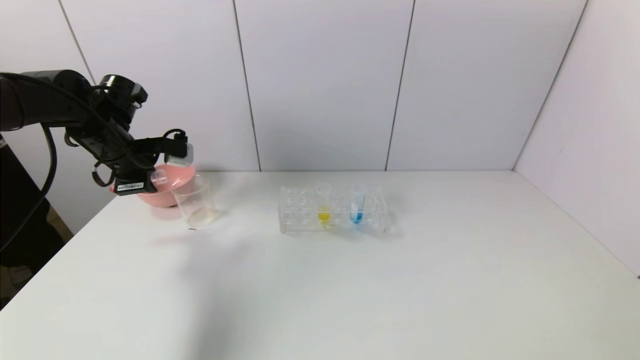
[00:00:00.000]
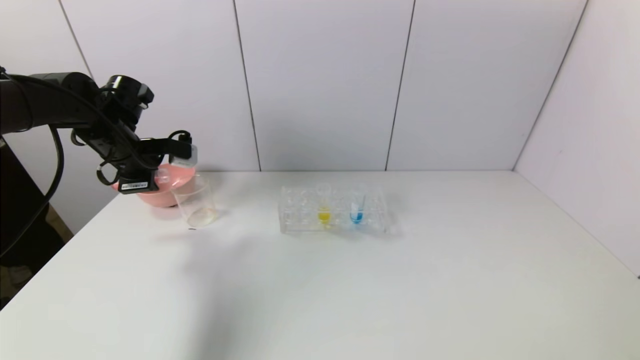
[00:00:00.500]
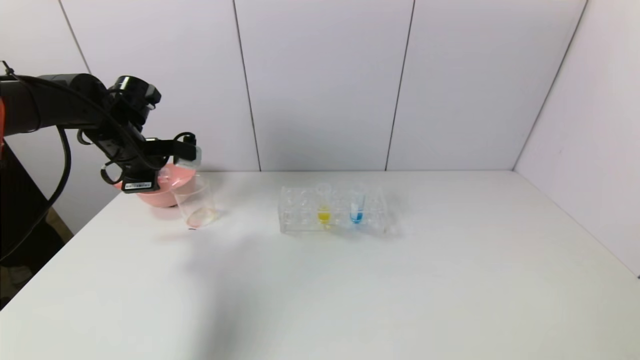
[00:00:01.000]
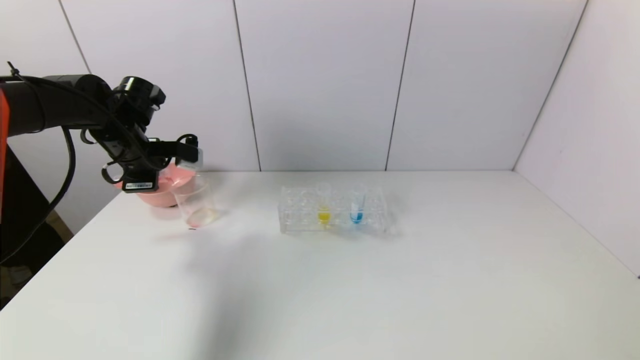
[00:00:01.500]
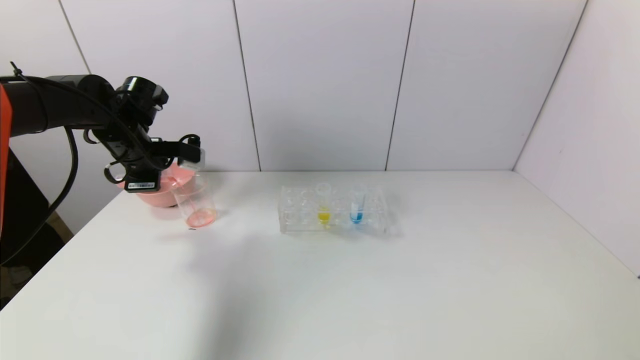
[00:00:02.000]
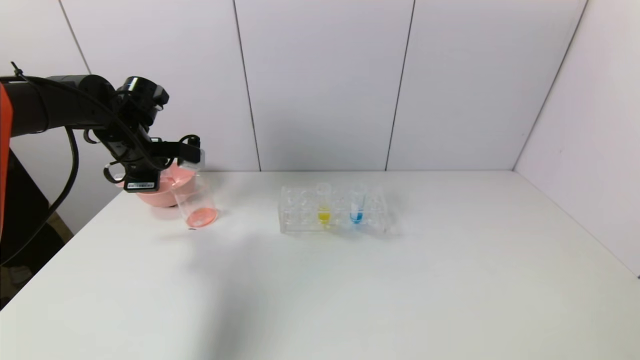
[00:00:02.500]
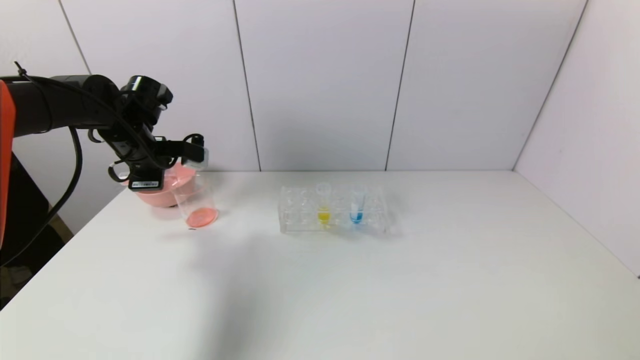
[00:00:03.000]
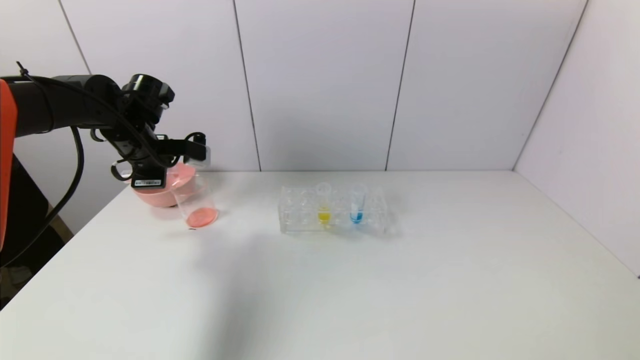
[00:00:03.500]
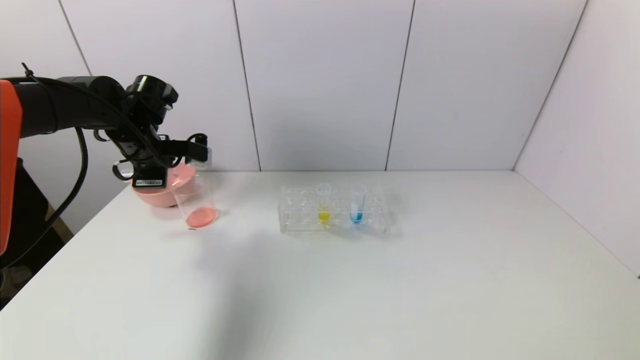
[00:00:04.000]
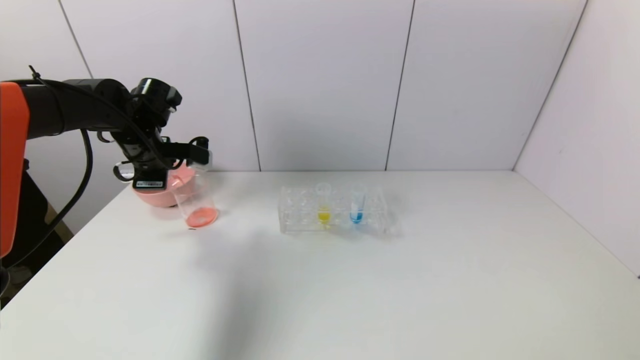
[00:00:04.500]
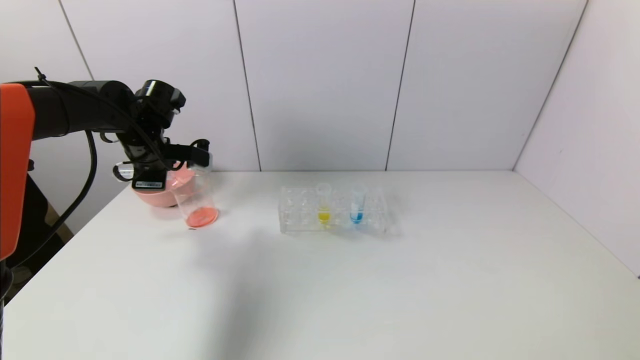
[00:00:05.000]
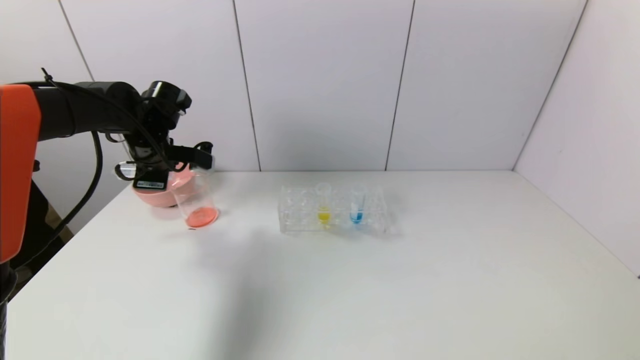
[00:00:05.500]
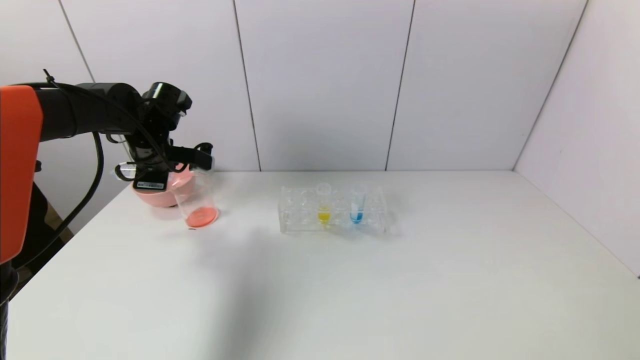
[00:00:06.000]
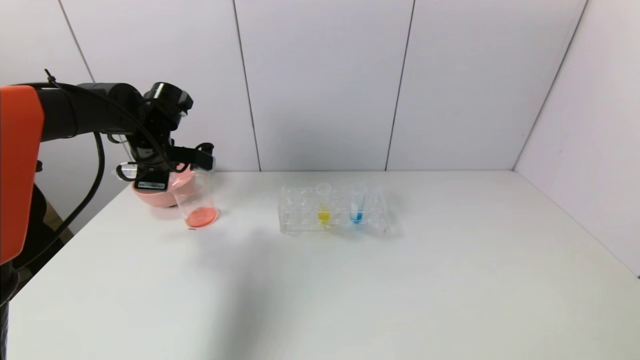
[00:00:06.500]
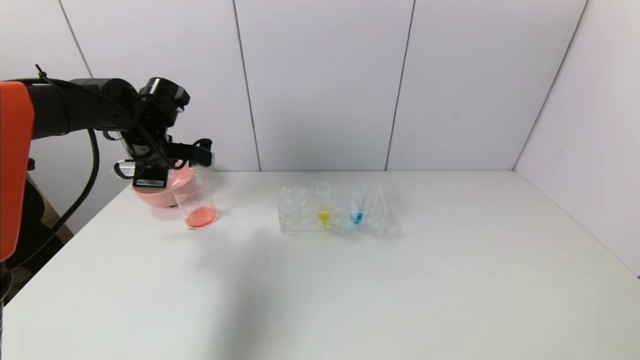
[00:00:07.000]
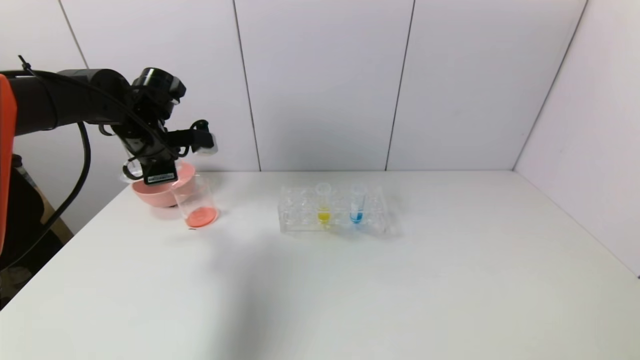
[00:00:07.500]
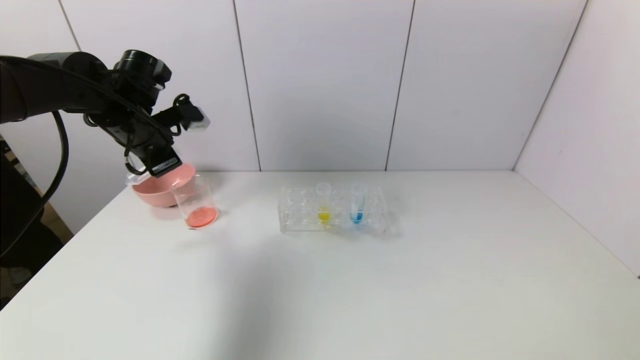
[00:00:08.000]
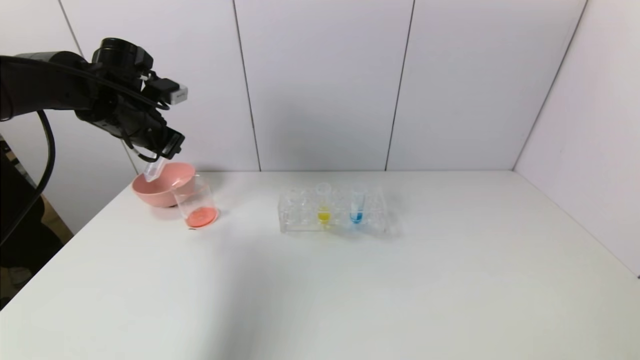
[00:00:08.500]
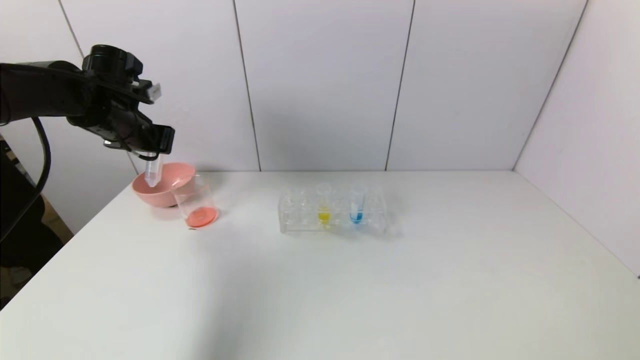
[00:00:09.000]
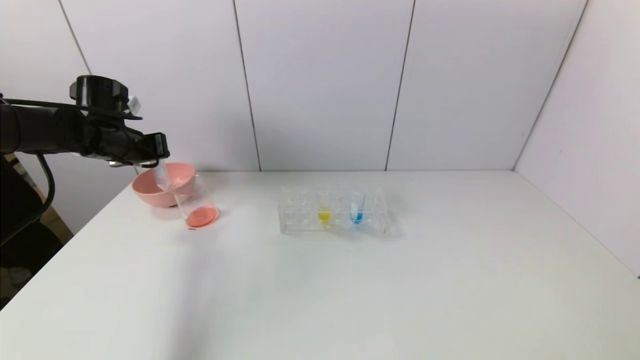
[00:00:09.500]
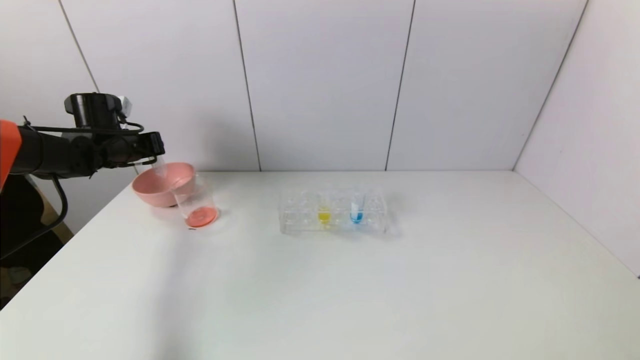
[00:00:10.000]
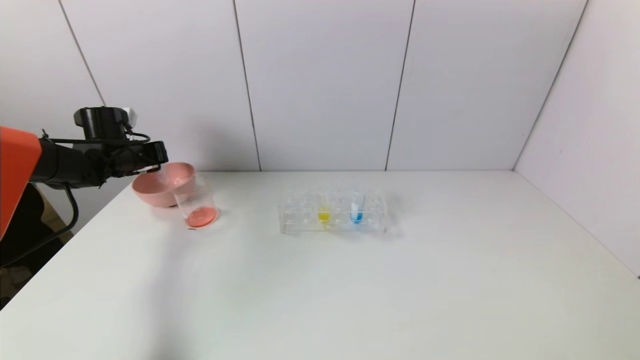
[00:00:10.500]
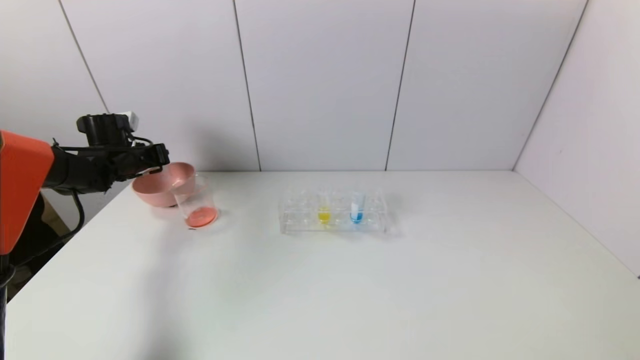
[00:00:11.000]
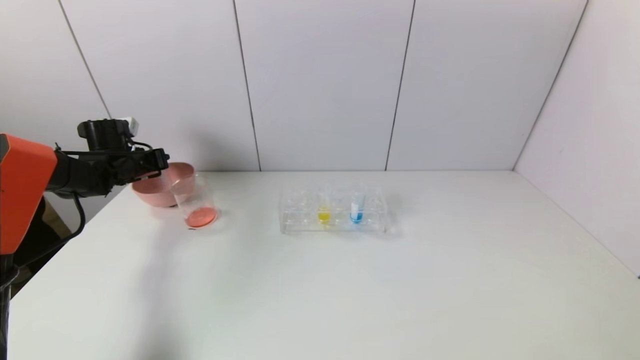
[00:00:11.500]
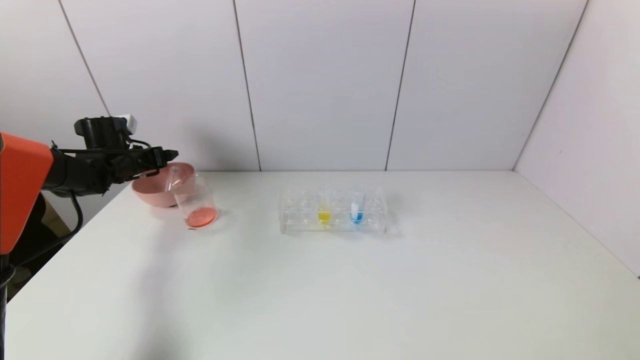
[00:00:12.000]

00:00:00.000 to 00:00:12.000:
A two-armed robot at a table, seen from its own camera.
Task of the whole recording: pick up the test tube with yellow pigment and the test tube with red pigment by grippers and pour them into the beaker.
Step, 00:00:00.000 to 00:00:05.500: Pour the red reagent into the graduated cylinder with the left gripper.
00:00:00.000 to 00:00:04.000: The grippers make only small movements.
00:00:04.000 to 00:00:06.000: There are only small adjustments of the grippers.
00:00:06.000 to 00:00:08.000: The left gripper ends up roughly 5 cm from where it was.
00:00:08.000 to 00:00:10.000: The left gripper travels to the left, downward and forward by approximately 15 cm.
00:00:10.000 to 00:00:12.000: The left gripper shifts by approximately 5 cm, and opens up.

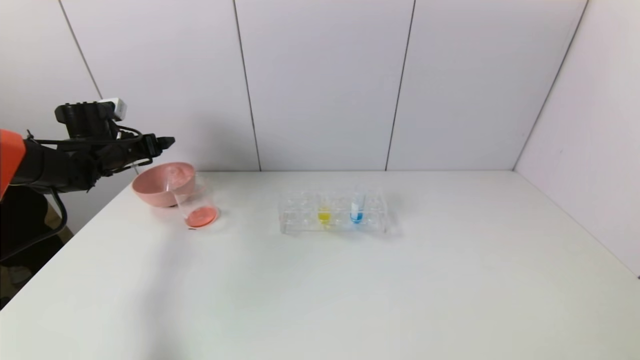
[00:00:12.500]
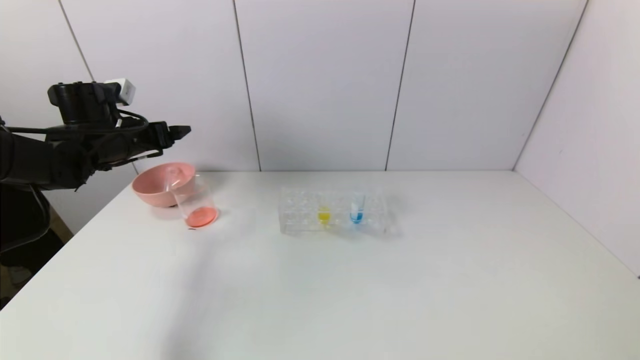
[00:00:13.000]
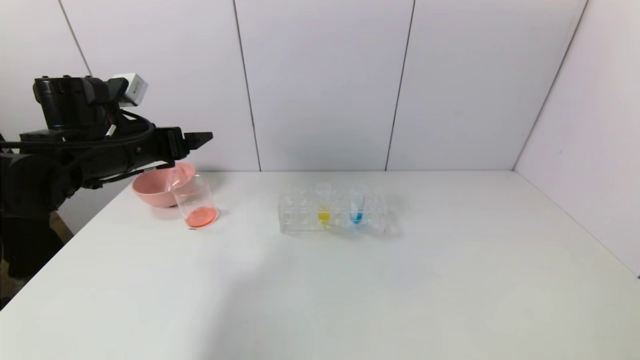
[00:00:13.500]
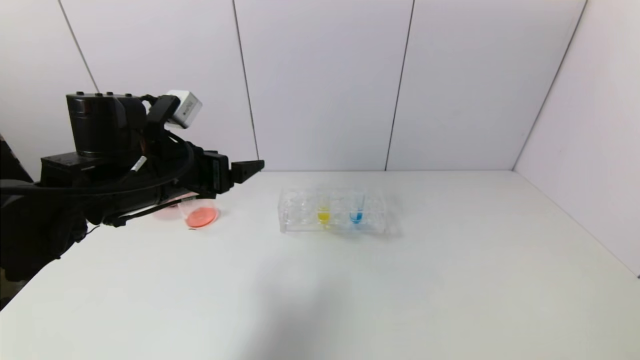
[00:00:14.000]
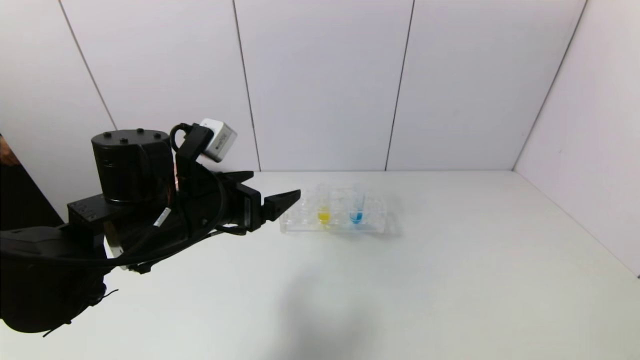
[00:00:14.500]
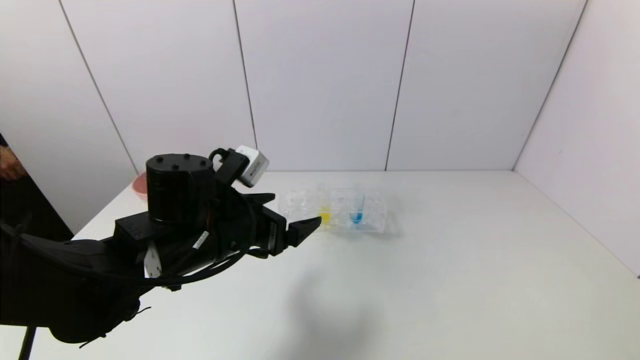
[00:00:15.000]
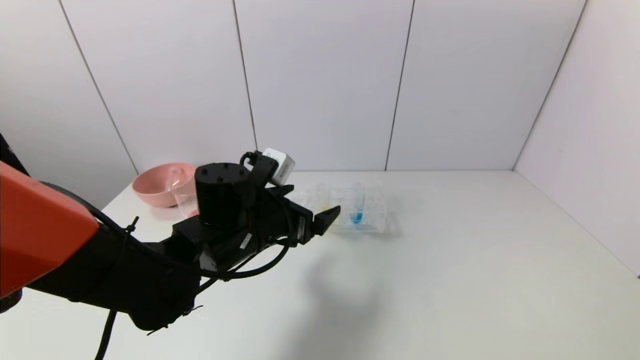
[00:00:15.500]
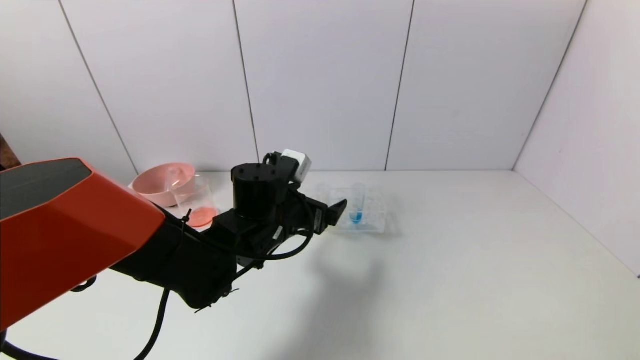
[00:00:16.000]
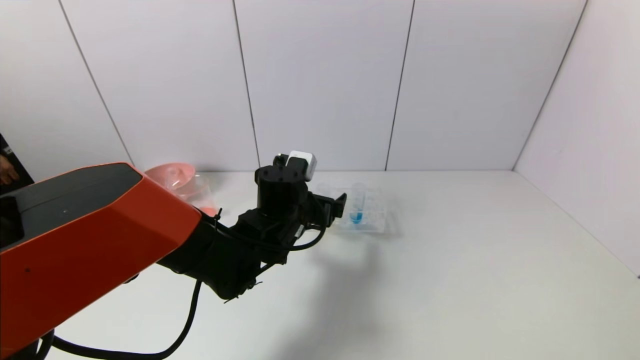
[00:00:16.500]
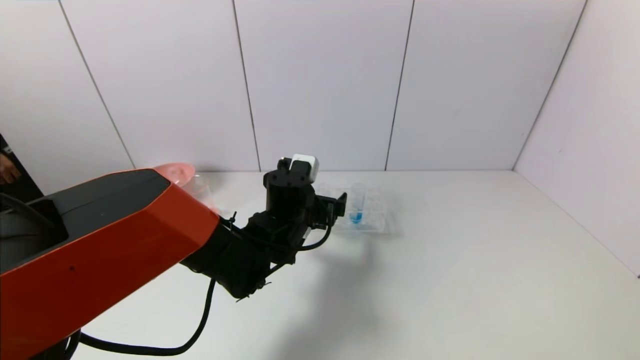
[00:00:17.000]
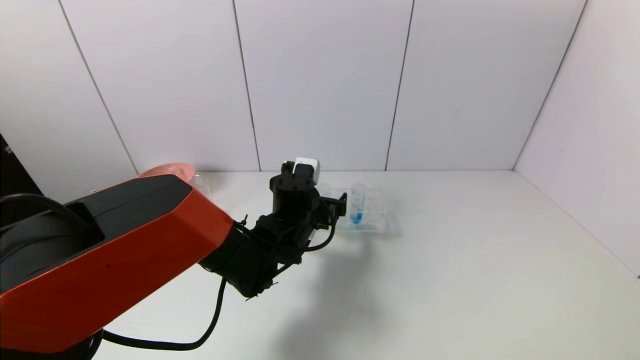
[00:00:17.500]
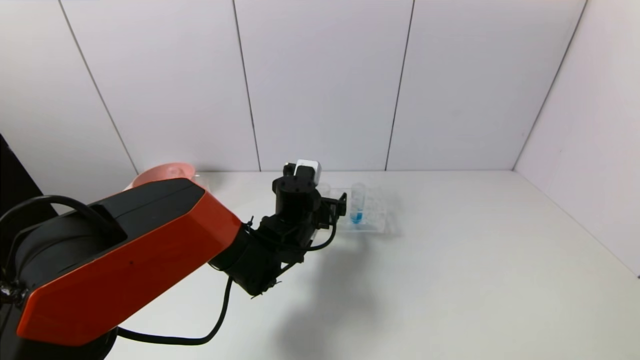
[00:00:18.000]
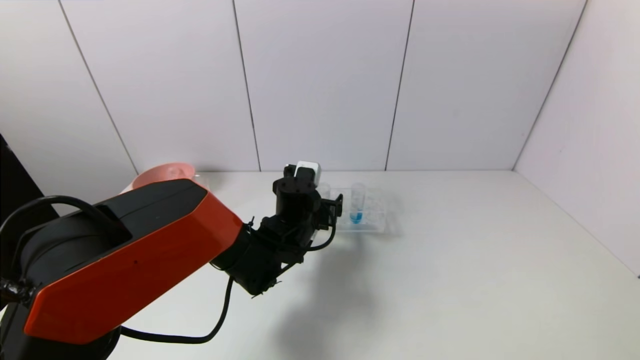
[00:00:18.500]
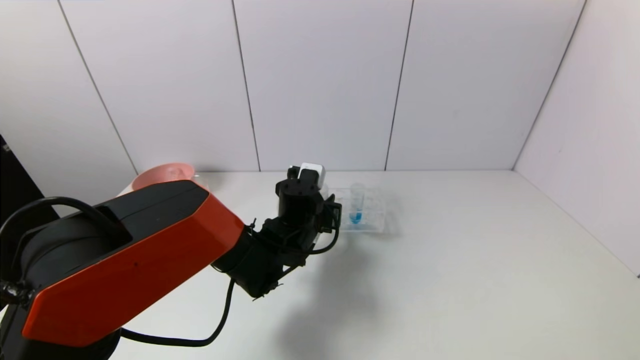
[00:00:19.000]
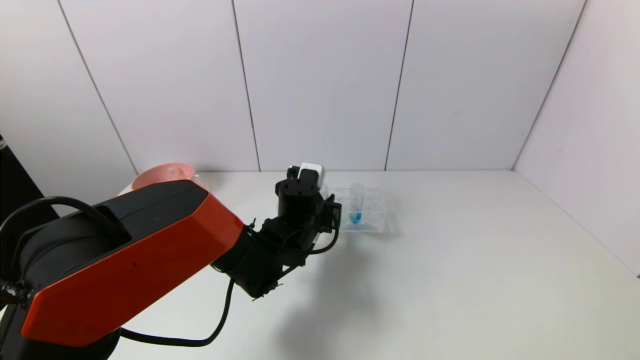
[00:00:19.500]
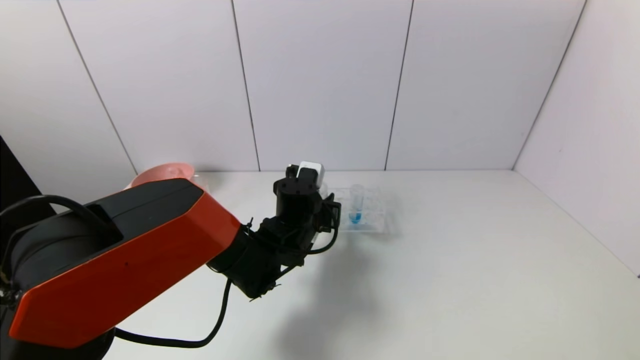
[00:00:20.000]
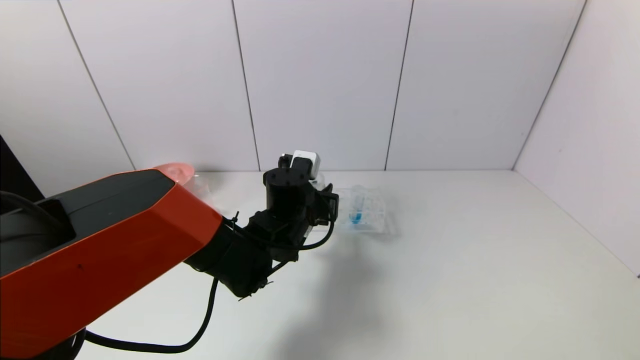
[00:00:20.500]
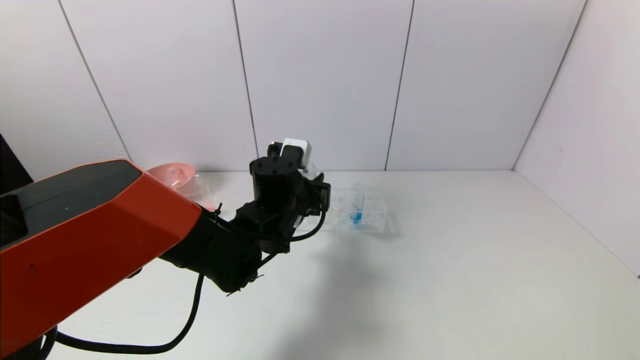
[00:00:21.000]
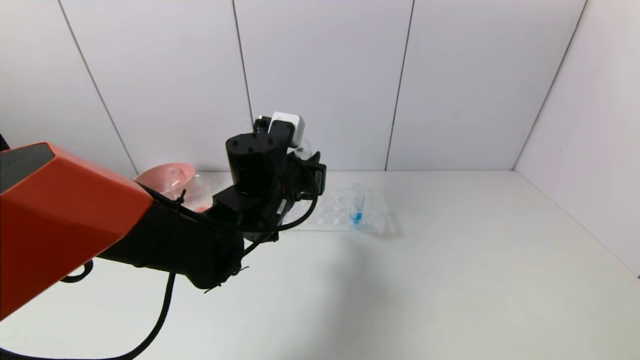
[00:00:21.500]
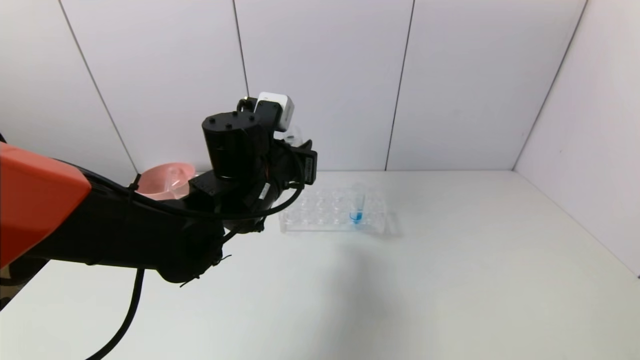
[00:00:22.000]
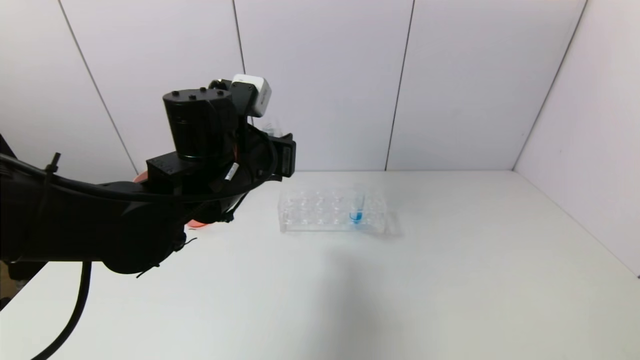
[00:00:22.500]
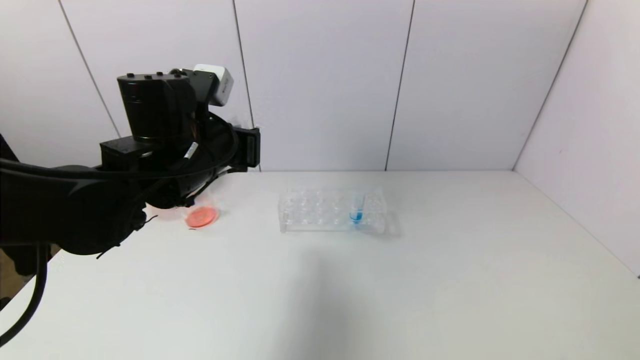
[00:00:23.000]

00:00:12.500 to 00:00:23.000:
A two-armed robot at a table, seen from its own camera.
Task of the whole recording: pick up the test tube with yellow pigment and the test tube with red pigment by grippers and pour them into the beaker.
Step, 00:00:12.500 to 00:00:19.000: Grasp the yellow reagent with the left gripper.
00:00:12.500 to 00:00:14.500: The left gripper goes roughly 30 cm to the right and backward.
00:00:14.500 to 00:00:16.500: The left gripper is displaced to the right, forward and downward by approximately 15 cm.
00:00:16.500 to 00:00:19.000: The left gripper changes place by approximately 5 cm, and closes its fingers.
00:00:19.000 to 00:00:21.000: The left gripper is displaced upward by some 5 cm.
00:00:21.000 to 00:00:23.000: The left gripper heads upward and to the left, covering roughly 15 cm.
